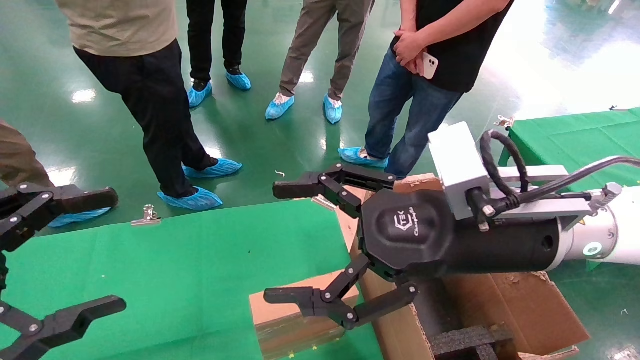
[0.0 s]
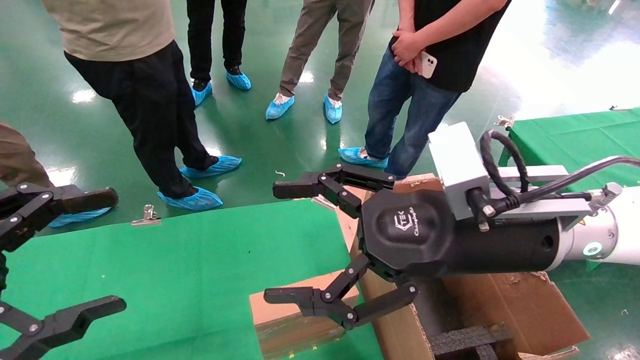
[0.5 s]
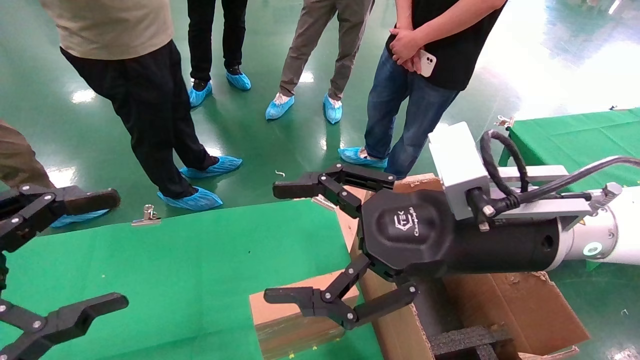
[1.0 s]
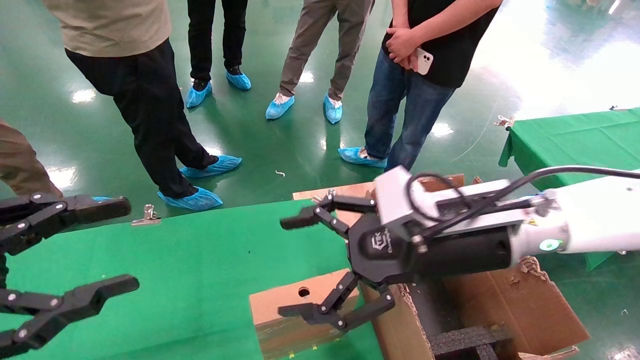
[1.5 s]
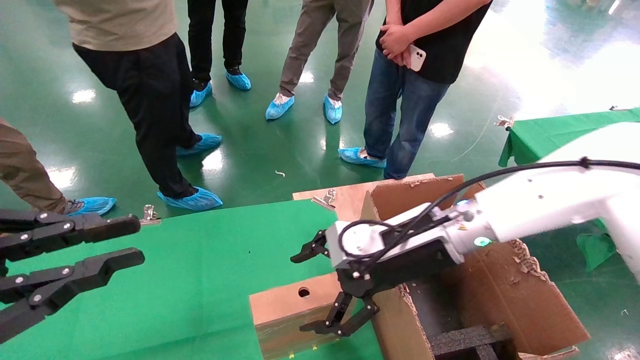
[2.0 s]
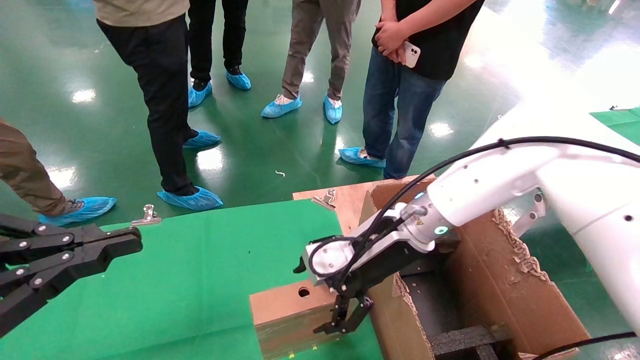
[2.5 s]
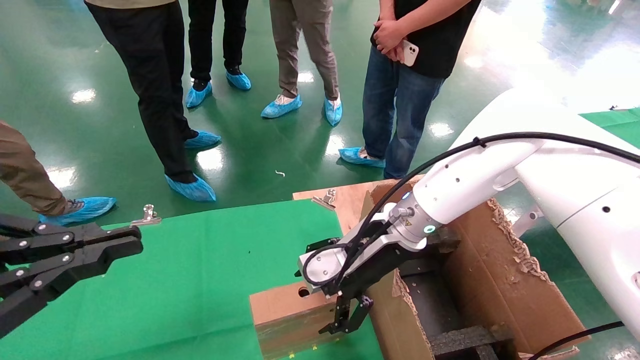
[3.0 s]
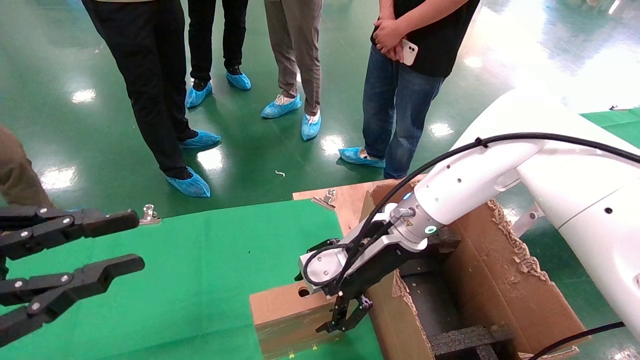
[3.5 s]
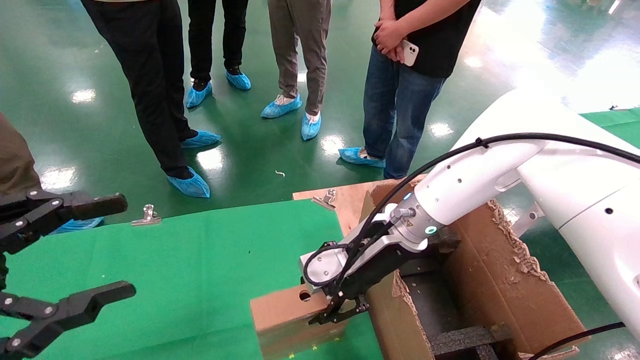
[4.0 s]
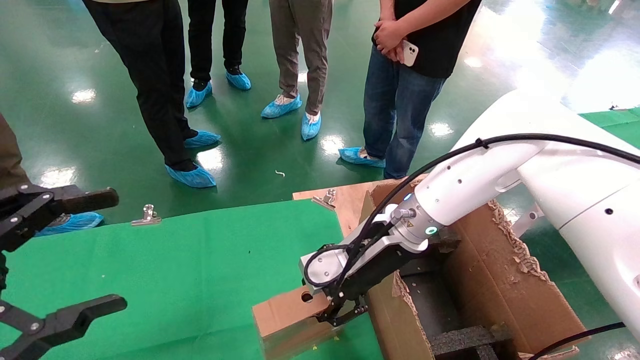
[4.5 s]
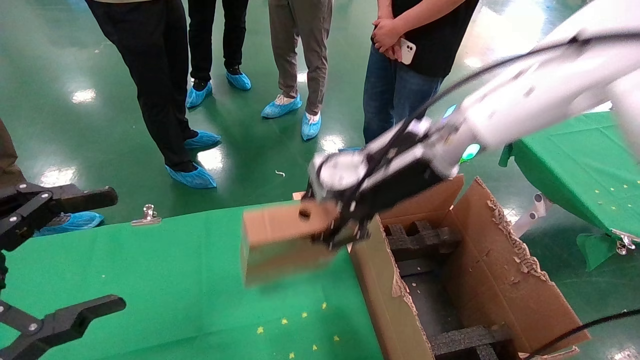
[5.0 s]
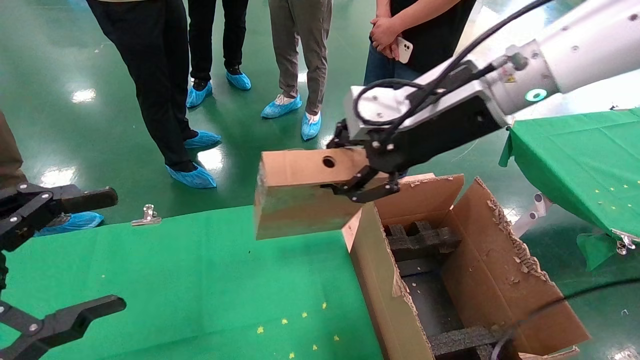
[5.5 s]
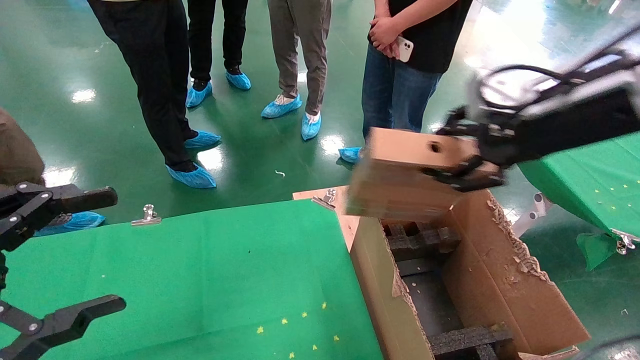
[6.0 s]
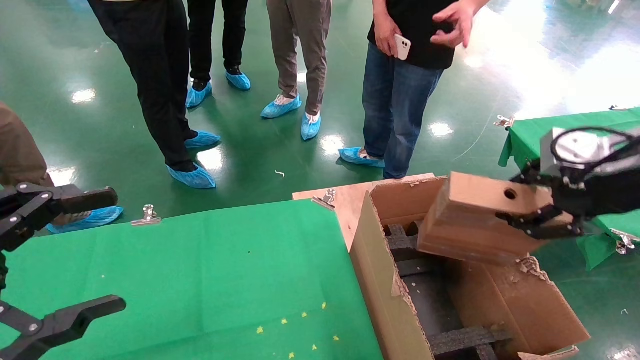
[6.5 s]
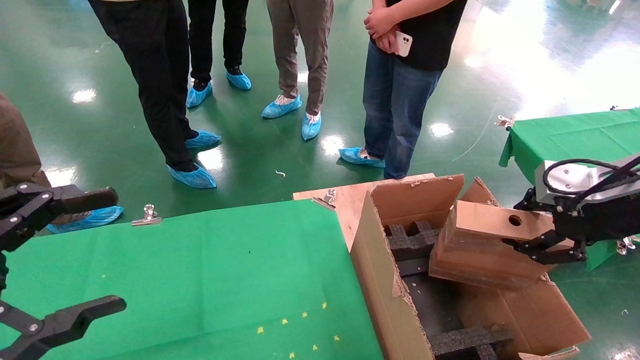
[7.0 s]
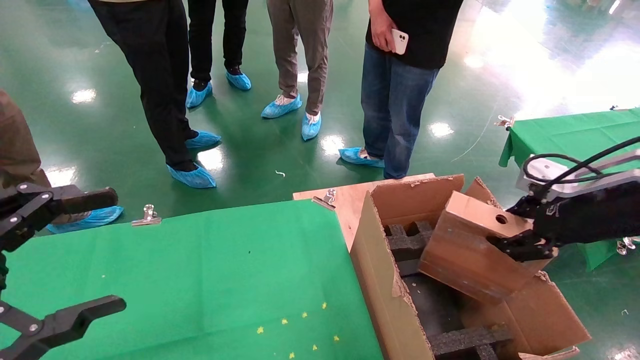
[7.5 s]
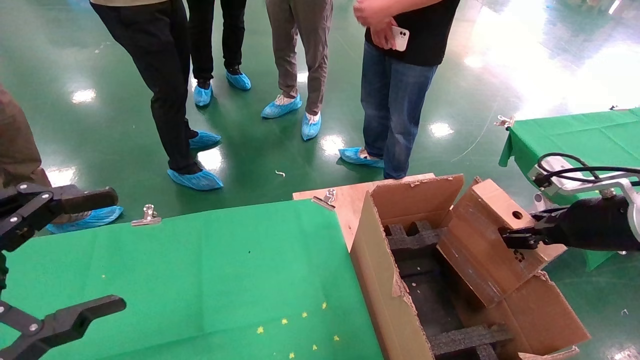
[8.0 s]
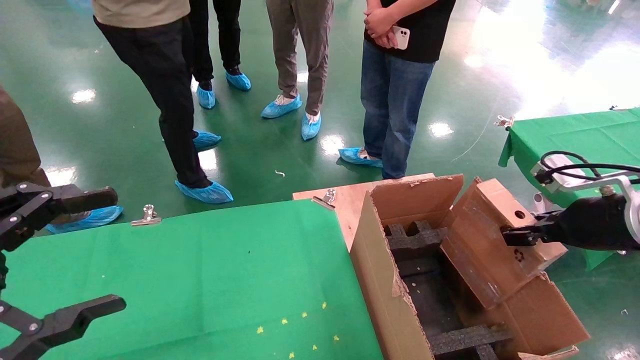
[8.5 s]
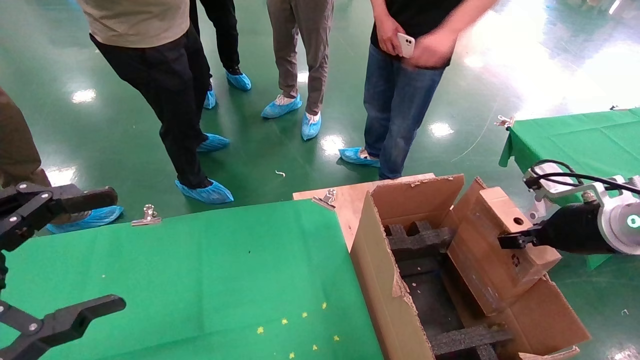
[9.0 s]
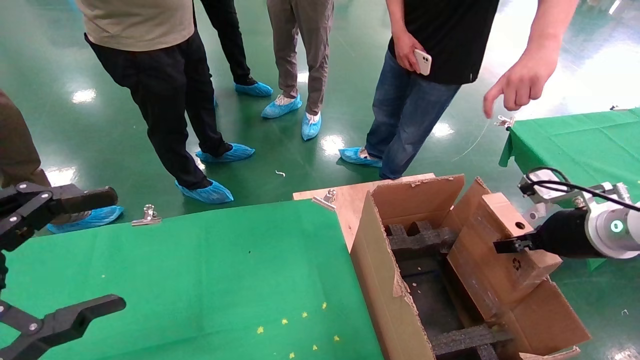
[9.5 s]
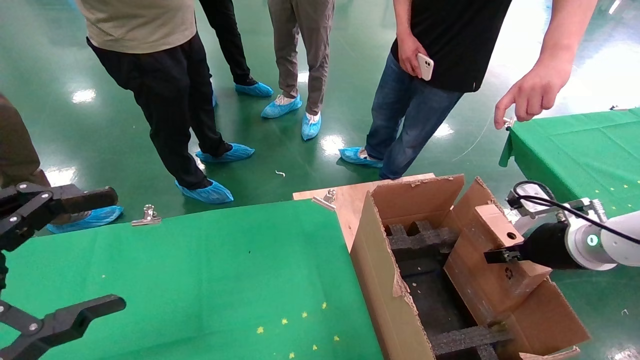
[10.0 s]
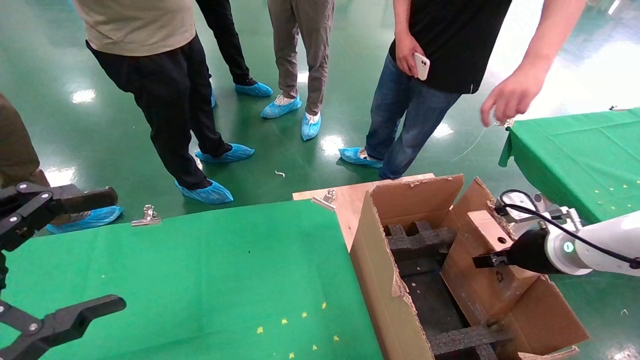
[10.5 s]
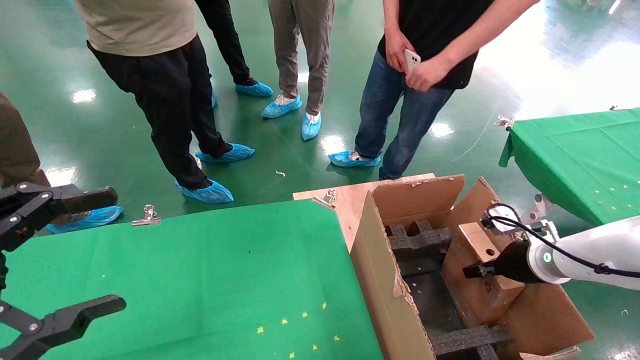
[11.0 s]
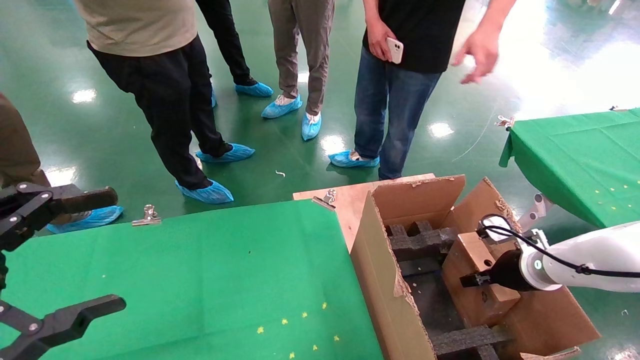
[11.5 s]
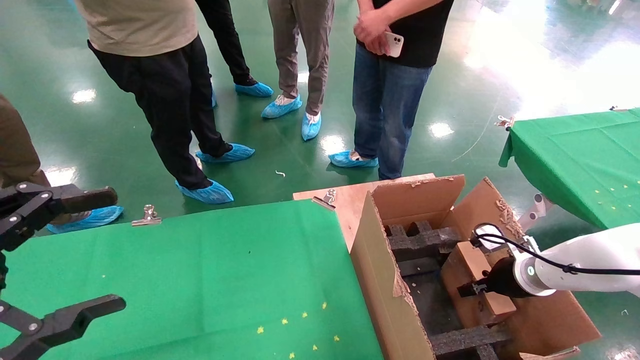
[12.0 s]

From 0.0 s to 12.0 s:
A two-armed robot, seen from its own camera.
Task of the whole recording: using a robotic arm to pick up a cardboard box and palace it the carton.
Step, from 1.5 s to 4.0 s: Pick up the mouse and the power cord paper box.
From 0.0 s to 2.0 s: The right gripper is displaced forward and downward by some 10 cm. The left gripper closes.
From 2.0 s to 4.0 s: The right gripper changes place by some 5 cm, and closes up.
From 4.0 s to 6.0 s: The left gripper opens; the right gripper moves upward, to the right and backward, some 25 cm, and closes.
From 6.0 s to 8.0 s: The right gripper goes about 20 cm downward and to the right.
From 8.0 s to 10.0 s: The right gripper goes approximately 10 cm downward and forward.
From 10.0 s to 12.0 s: The right gripper heads downward and forward, covering roughly 10 cm.

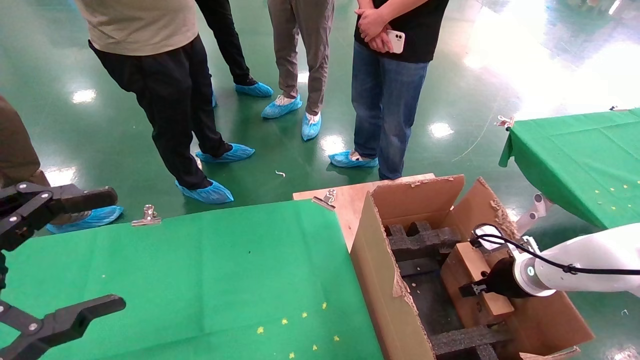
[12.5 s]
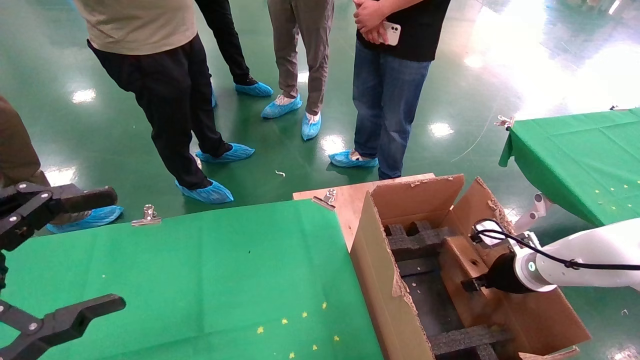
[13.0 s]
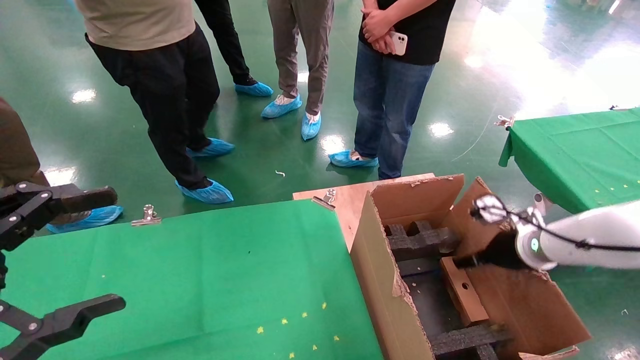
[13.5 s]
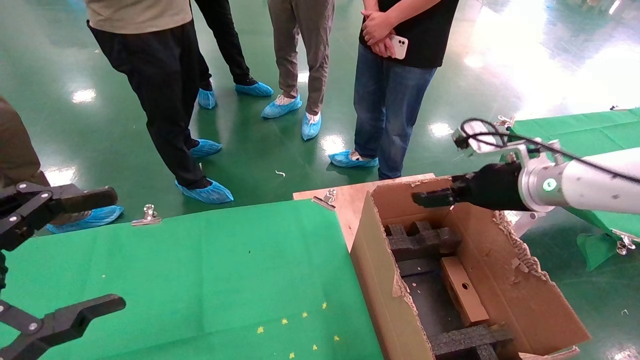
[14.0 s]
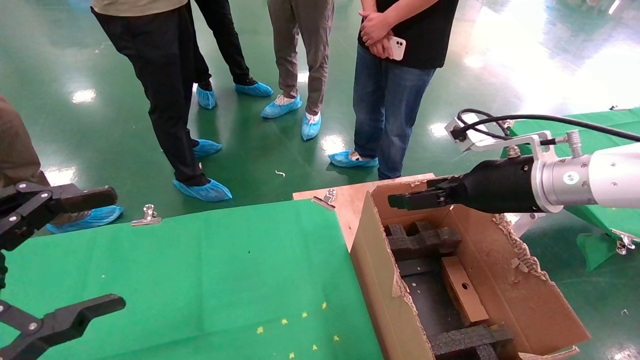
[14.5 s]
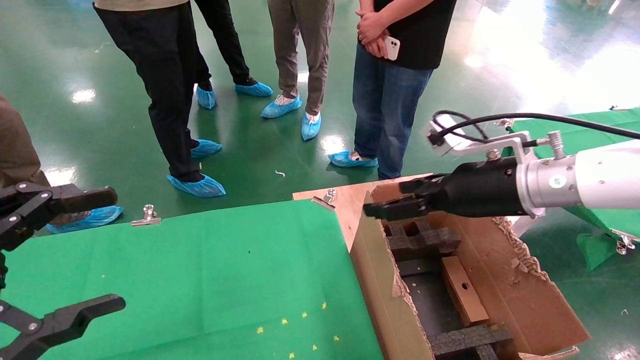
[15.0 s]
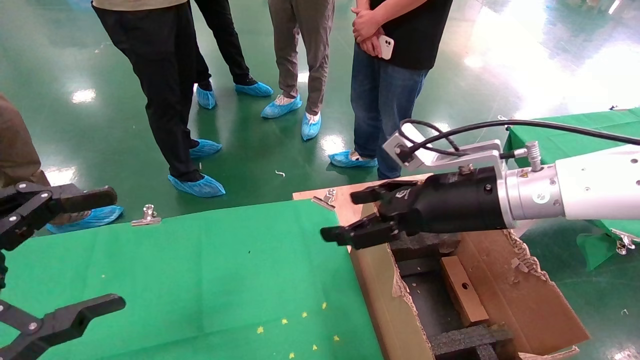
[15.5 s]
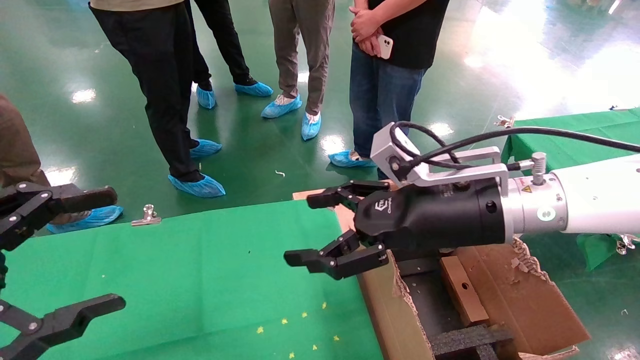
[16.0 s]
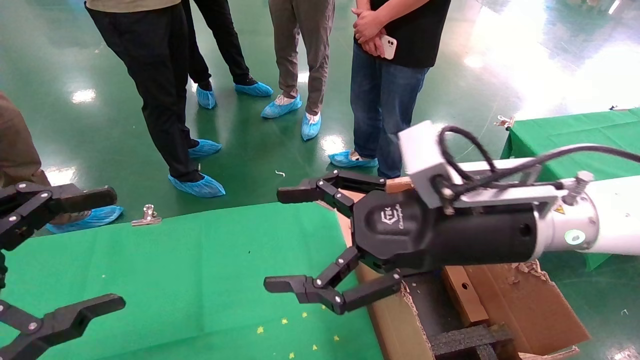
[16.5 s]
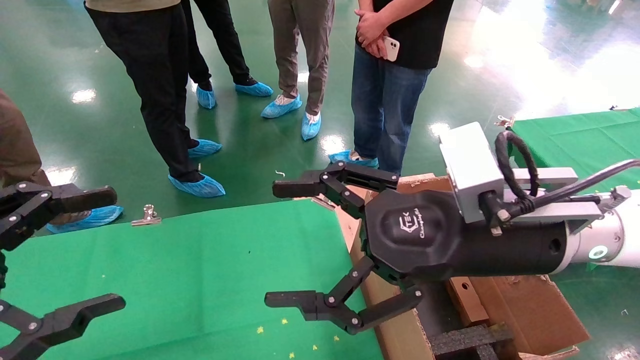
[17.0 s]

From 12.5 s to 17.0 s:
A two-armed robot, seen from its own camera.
Task of the whole recording: using a robotic arm to pick up a cardboard box and palace it the carton.
From 12.5 s to 14.5 s: The right gripper heads upward and to the left, covering some 25 cm, and opens up.
From 14.5 s to 17.0 s: The right gripper heads to the left and backward, covering approximately 15 cm.

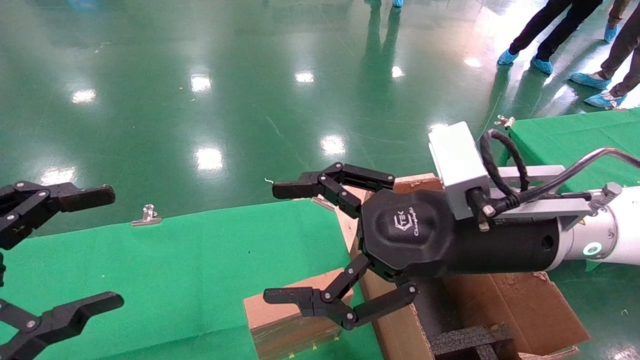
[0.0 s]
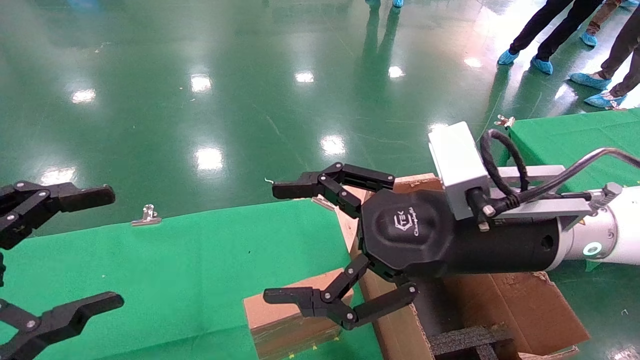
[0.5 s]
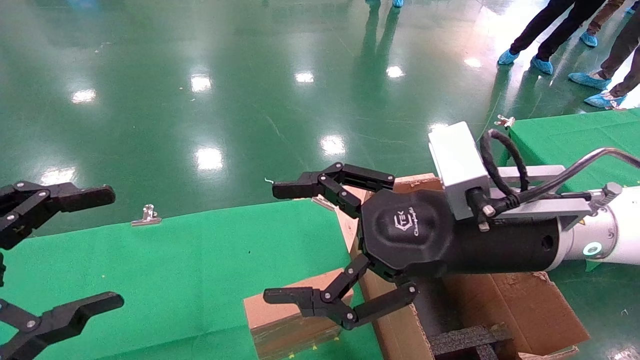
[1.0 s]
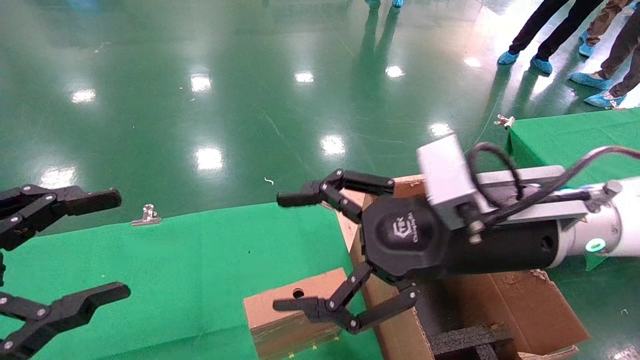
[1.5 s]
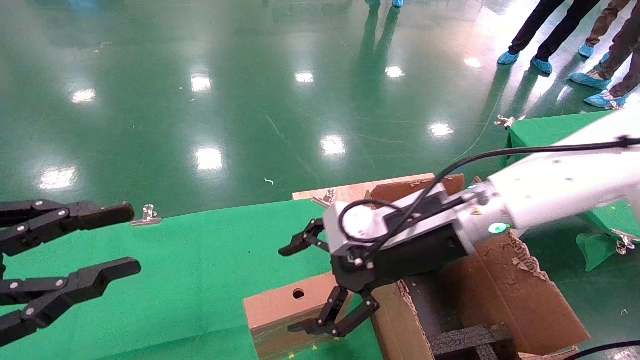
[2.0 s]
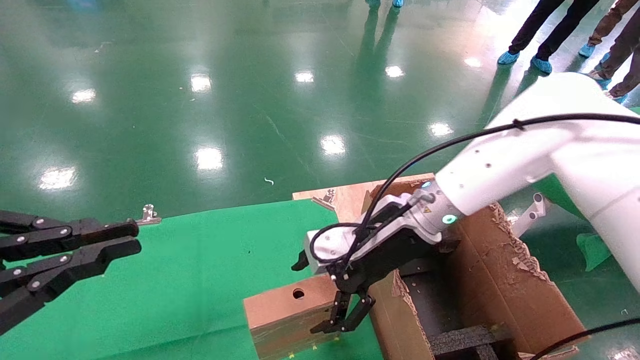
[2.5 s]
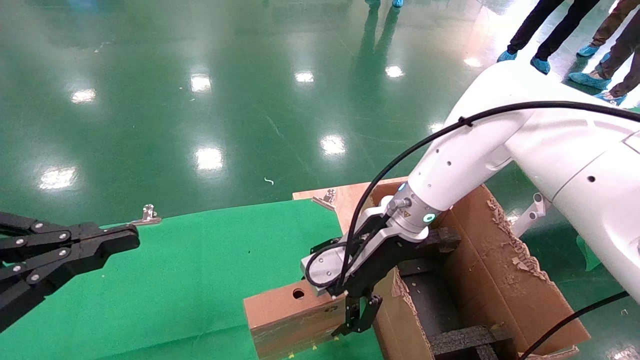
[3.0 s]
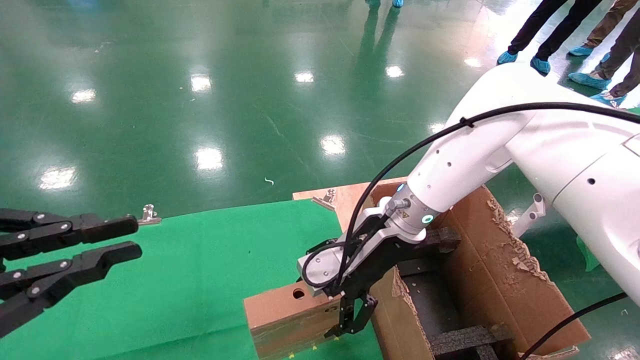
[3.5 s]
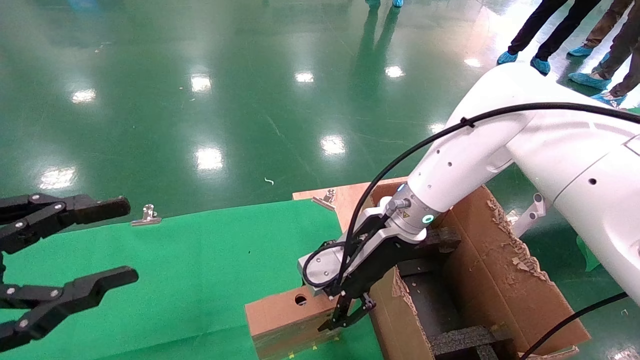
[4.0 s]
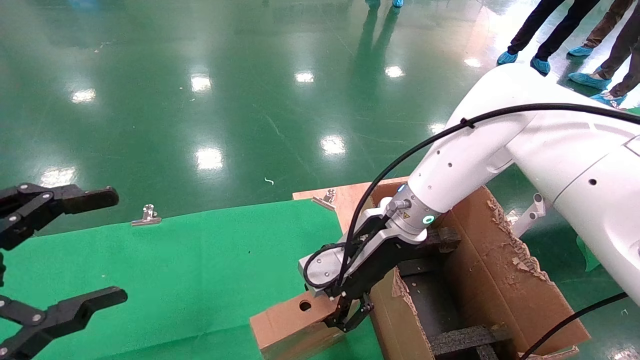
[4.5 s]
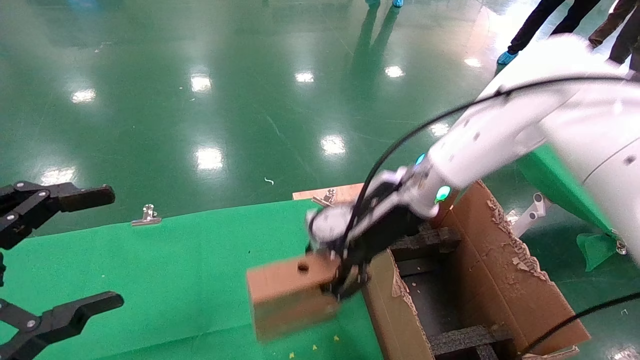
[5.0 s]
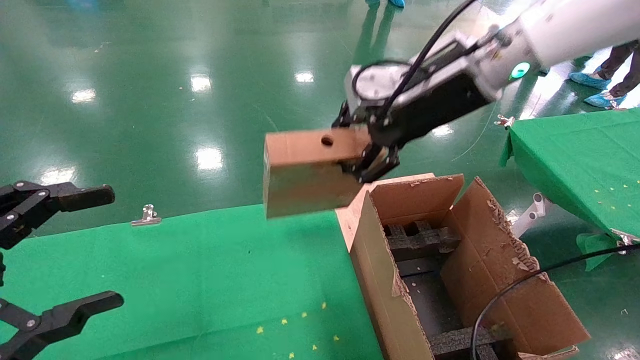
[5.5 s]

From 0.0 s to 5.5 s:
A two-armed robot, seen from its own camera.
Task of the whole recording: using a robotic arm to pick up a cardboard box and palace it the carton.
Step, from 1.5 s to 4.0 s: Pick up the mouse and the power cord paper box.
From 0.0 s to 2.0 s: The left gripper closes up. The right gripper heads forward, covering roughly 10 cm.
From 2.0 s to 3.5 s: The right gripper travels forward by approximately 5 cm. Meanwhile the left gripper closes its fingers.
From 3.5 s to 5.5 s: The right gripper heads upward and to the right, covering approximately 20 cm, and closes. Meanwhile the left gripper opens its fingers.
